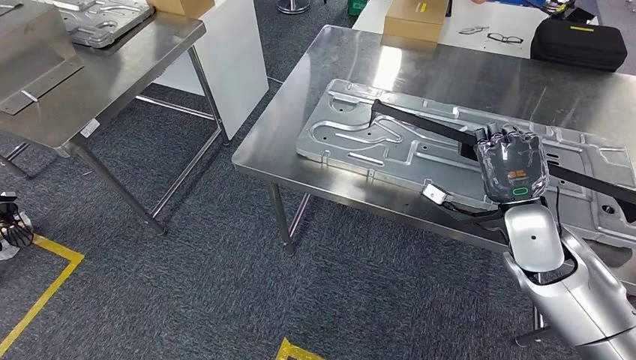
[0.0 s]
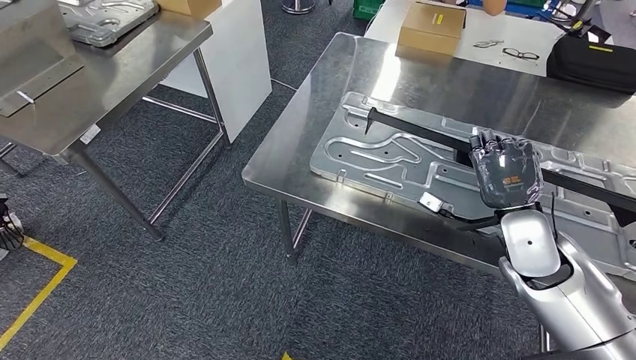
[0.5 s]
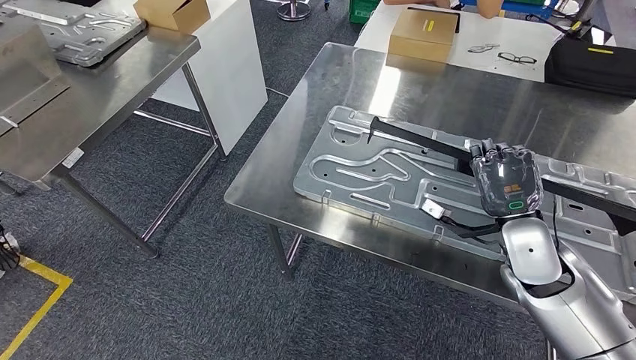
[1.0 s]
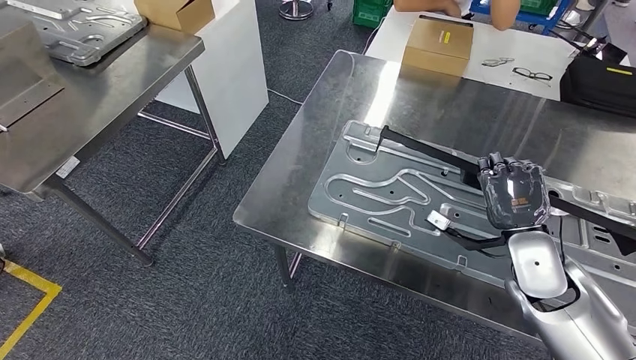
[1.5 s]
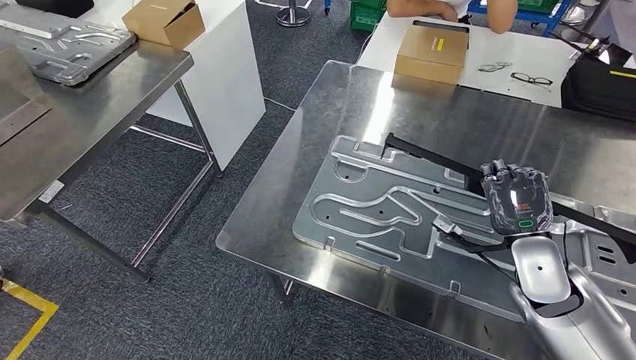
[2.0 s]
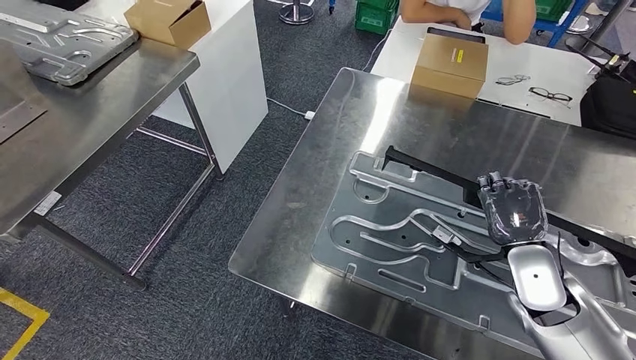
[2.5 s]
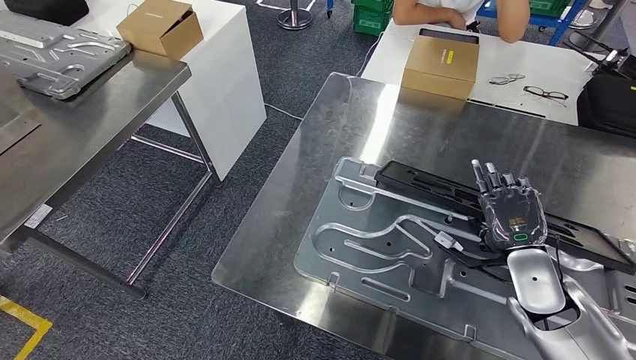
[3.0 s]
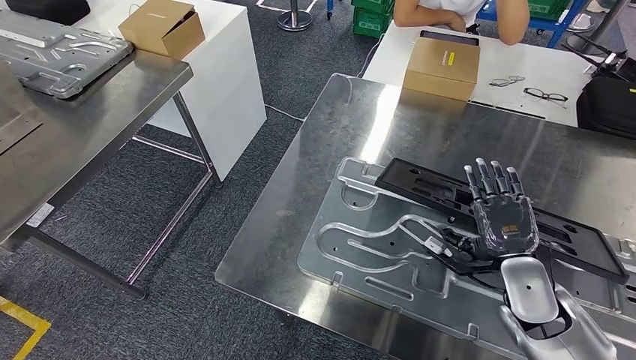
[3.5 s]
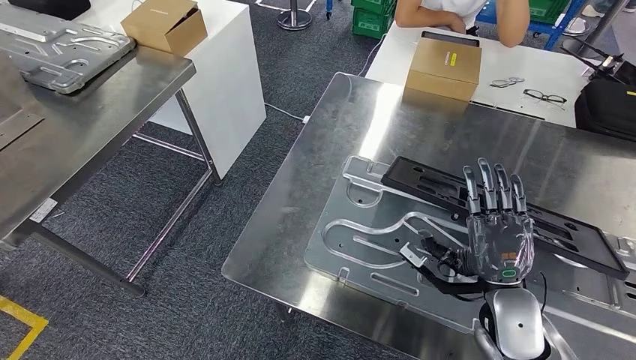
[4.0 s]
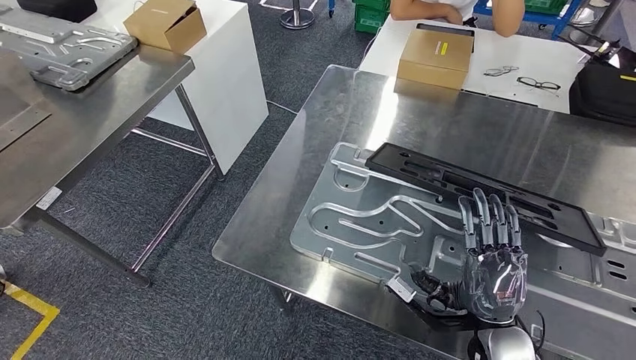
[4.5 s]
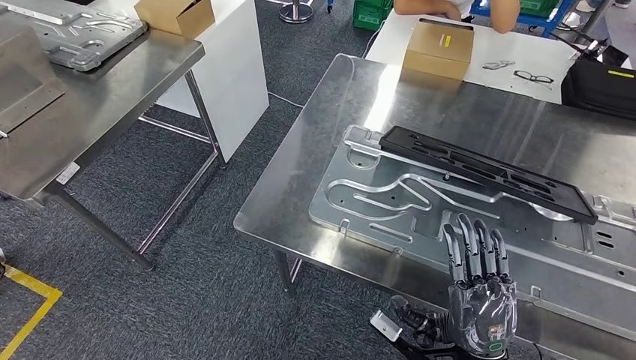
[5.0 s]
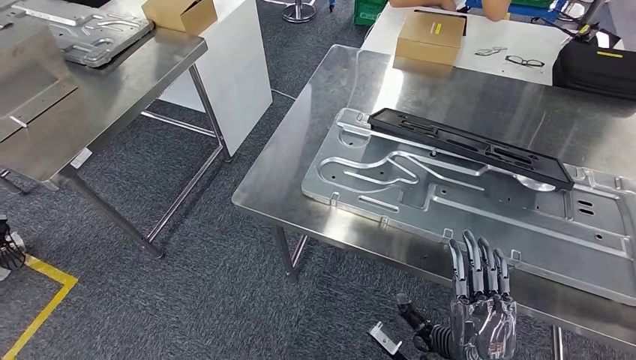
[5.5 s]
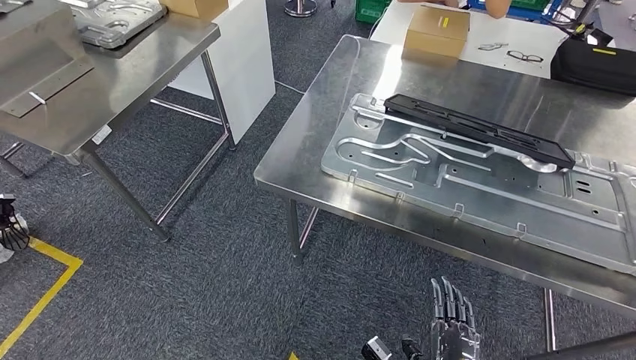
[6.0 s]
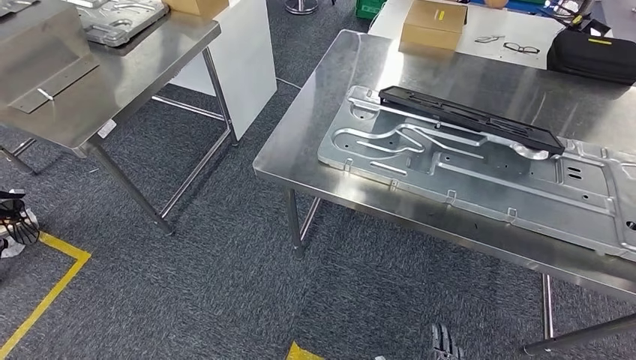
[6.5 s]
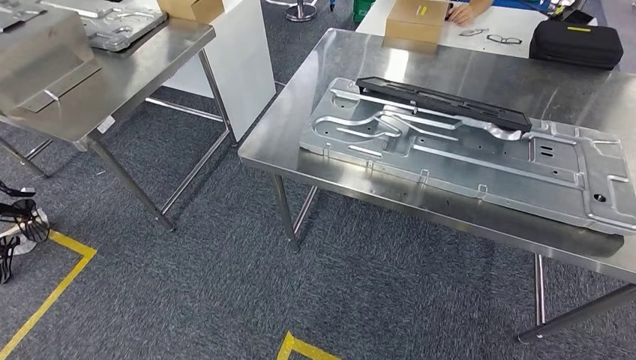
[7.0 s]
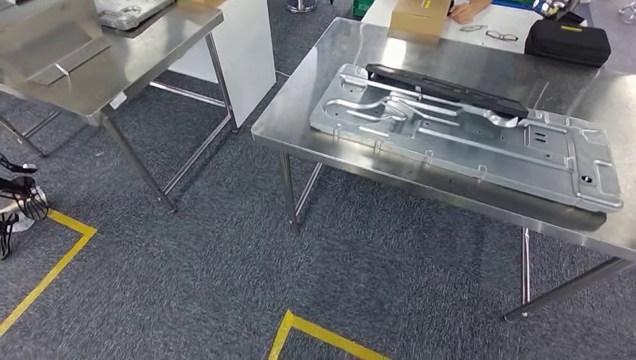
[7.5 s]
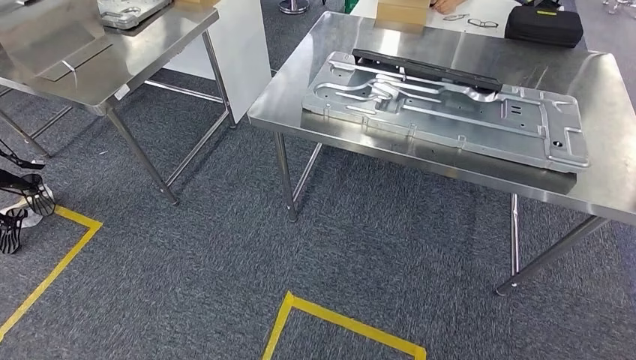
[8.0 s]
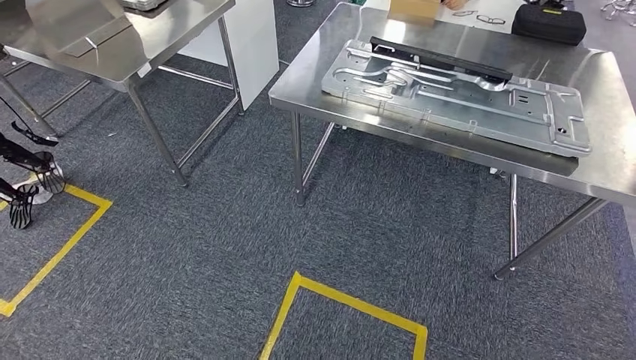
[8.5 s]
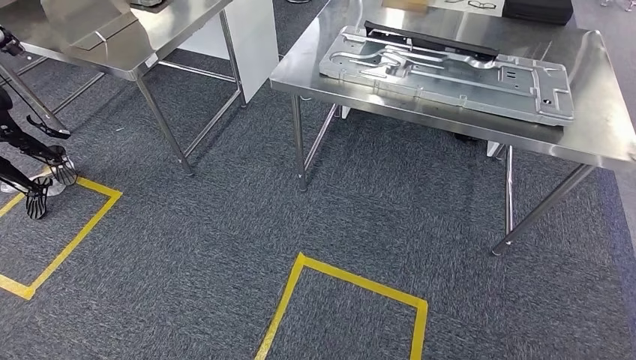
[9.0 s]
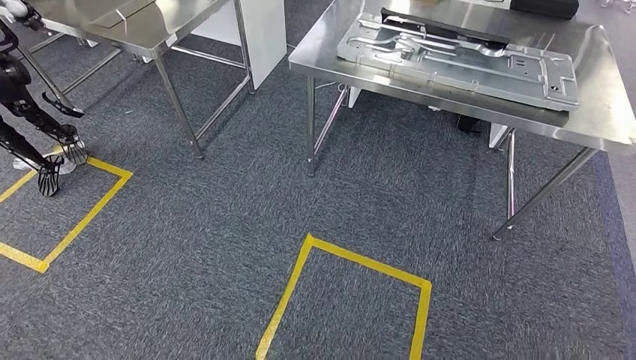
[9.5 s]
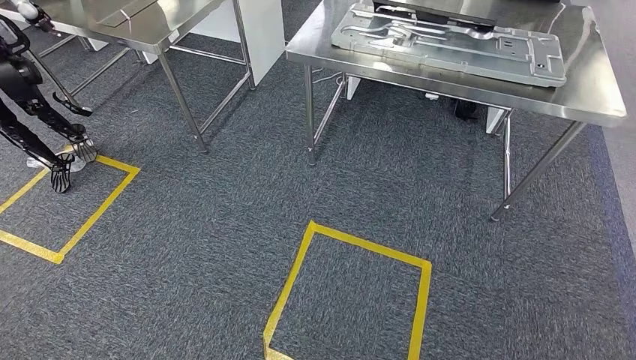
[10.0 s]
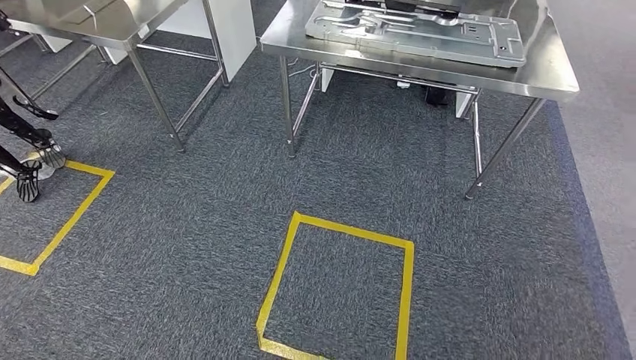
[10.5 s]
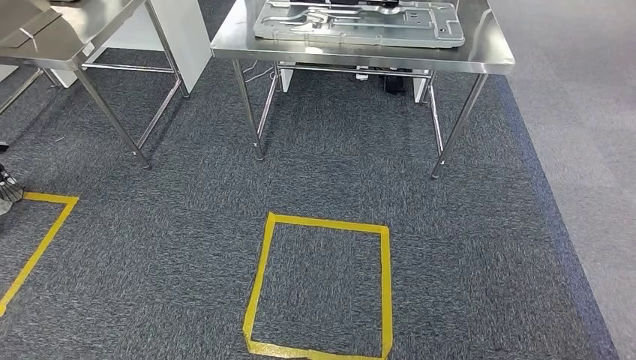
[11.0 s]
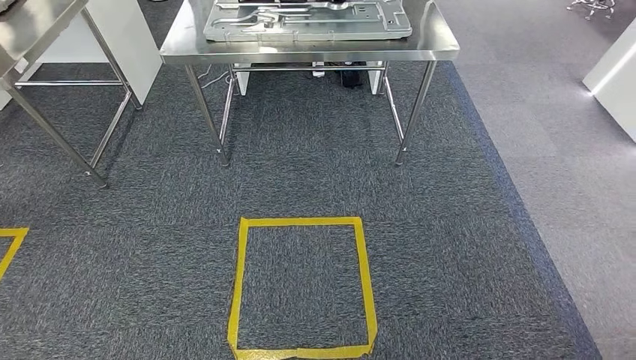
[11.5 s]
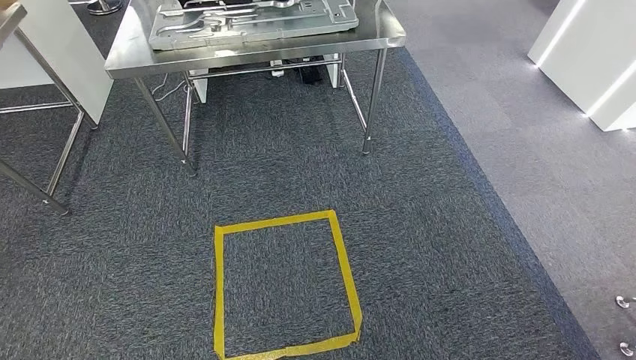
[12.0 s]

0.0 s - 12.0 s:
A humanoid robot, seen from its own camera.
Step, 0.0 s - 9.0 s: Insert the large material into the corresponding slot on the workbench.

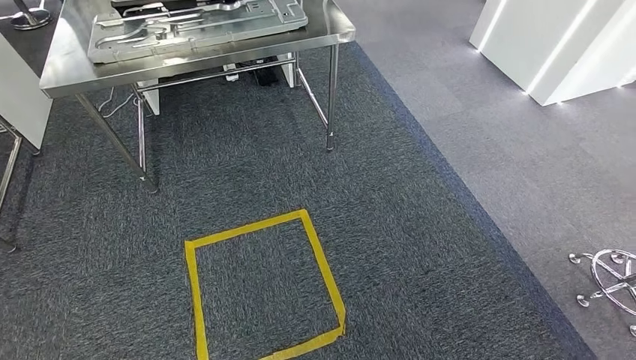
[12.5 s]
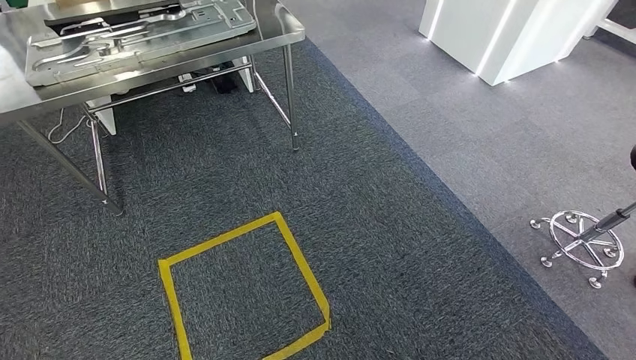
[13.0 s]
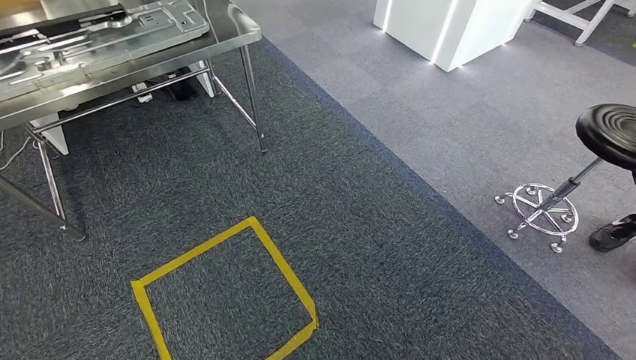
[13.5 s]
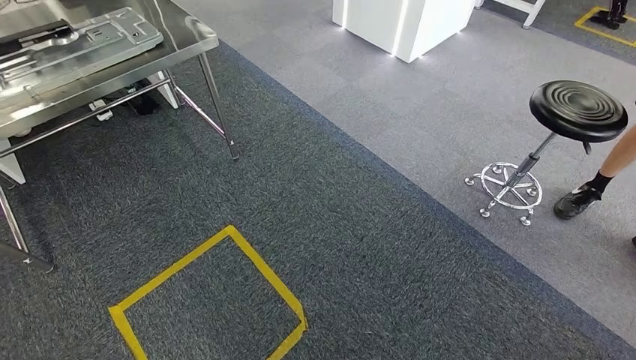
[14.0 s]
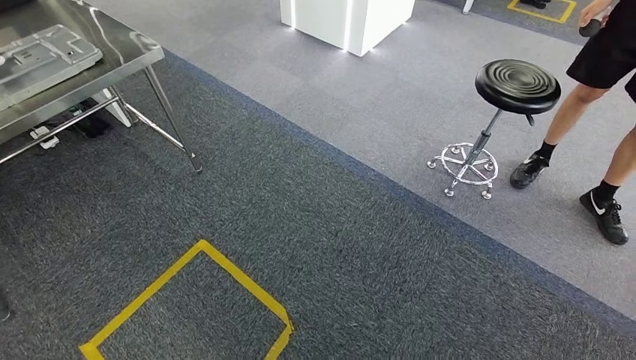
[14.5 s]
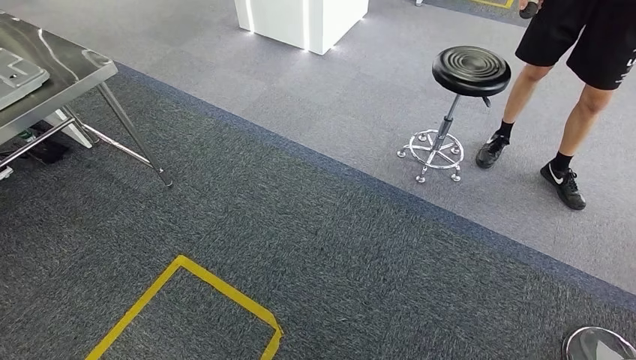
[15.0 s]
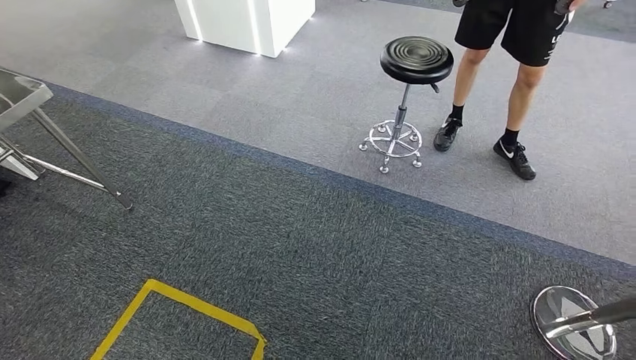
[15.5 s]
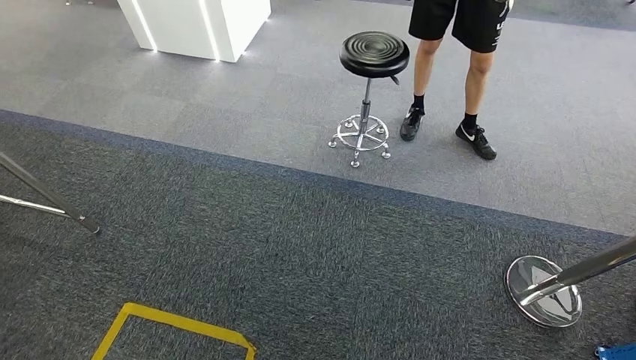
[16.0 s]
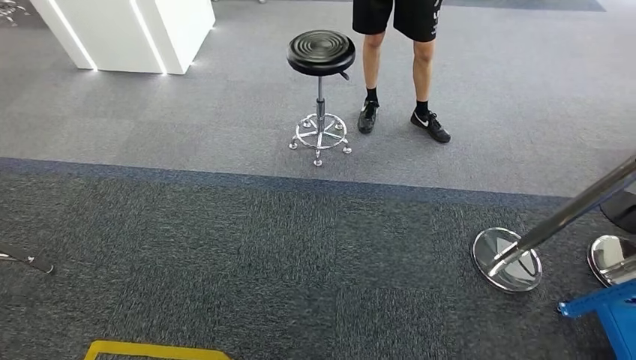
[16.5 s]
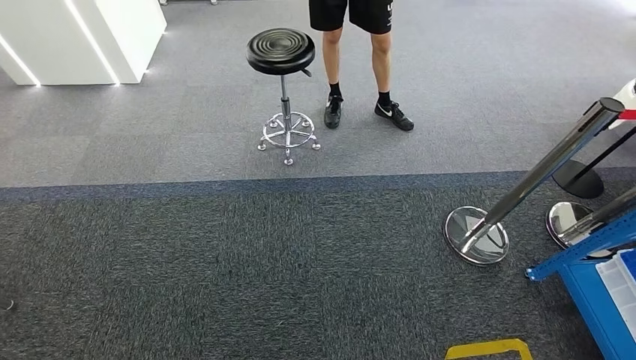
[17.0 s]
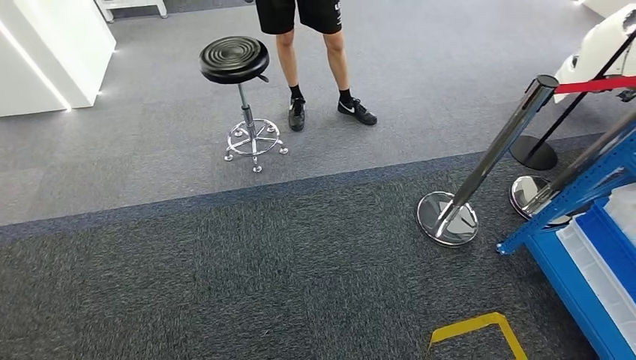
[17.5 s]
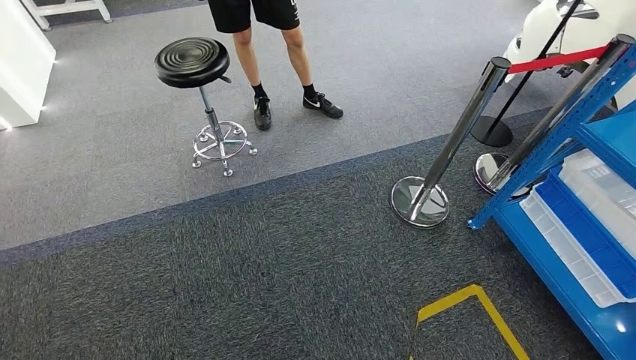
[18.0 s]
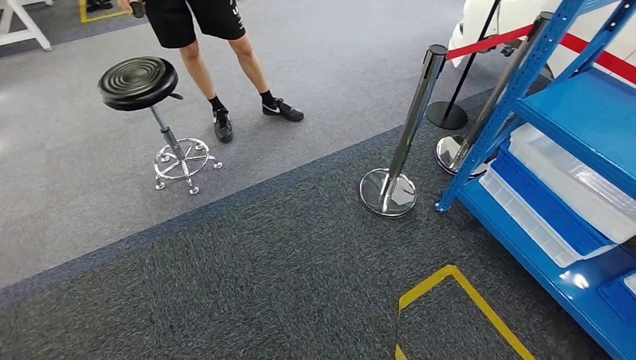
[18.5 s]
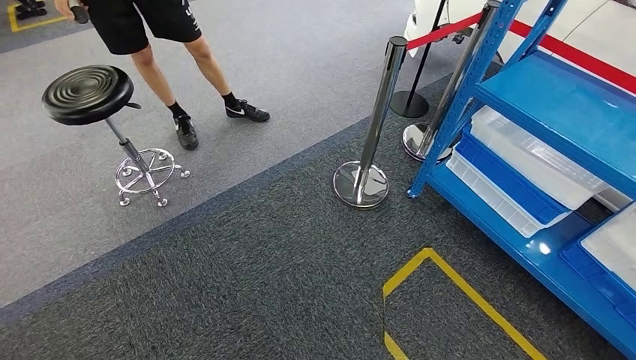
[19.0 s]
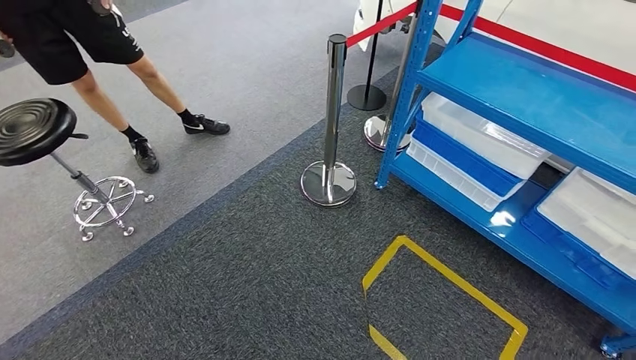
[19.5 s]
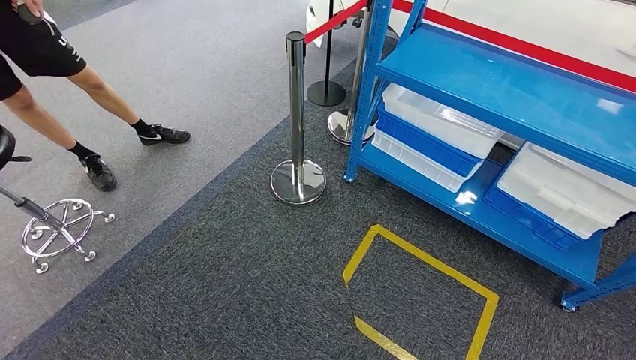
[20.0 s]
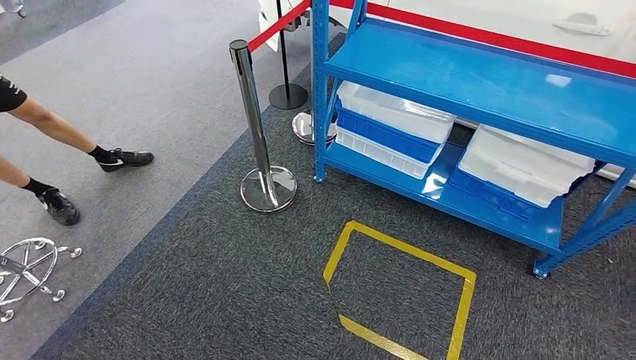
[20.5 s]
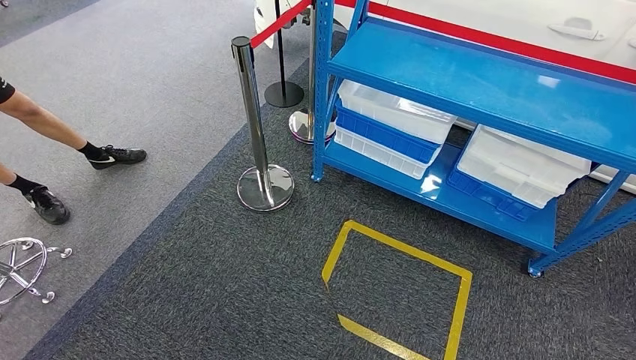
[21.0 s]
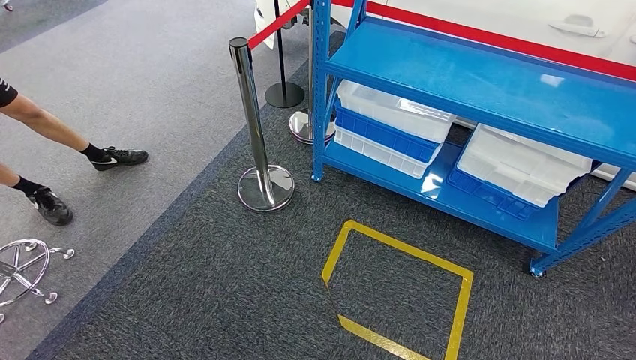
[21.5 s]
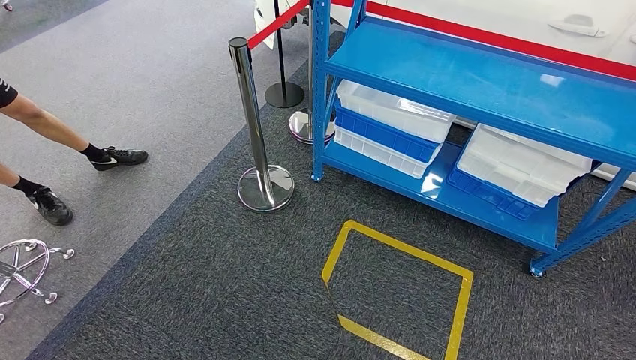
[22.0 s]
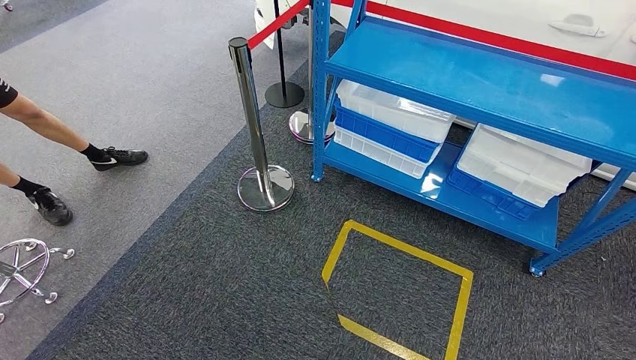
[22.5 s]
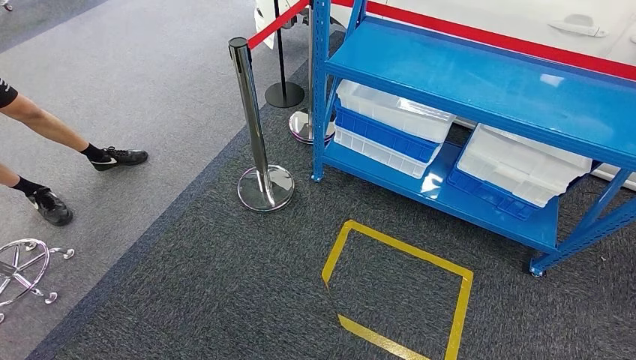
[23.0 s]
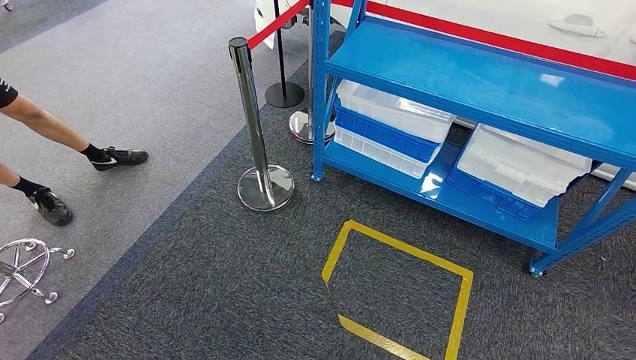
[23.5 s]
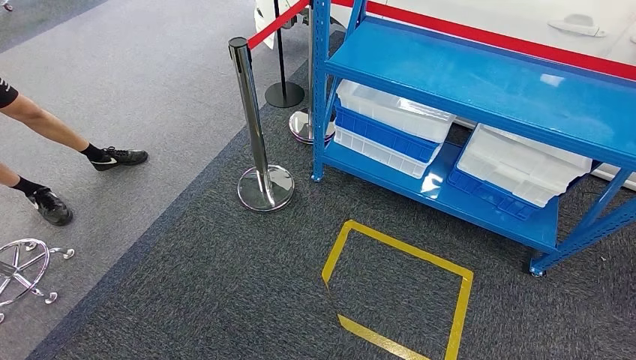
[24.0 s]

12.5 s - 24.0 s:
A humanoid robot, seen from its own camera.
22.0 s - 24.0 s: Neither hand changes place.
